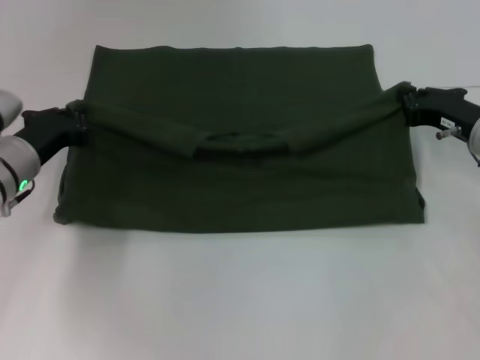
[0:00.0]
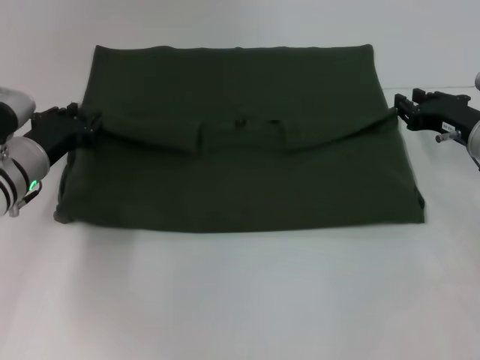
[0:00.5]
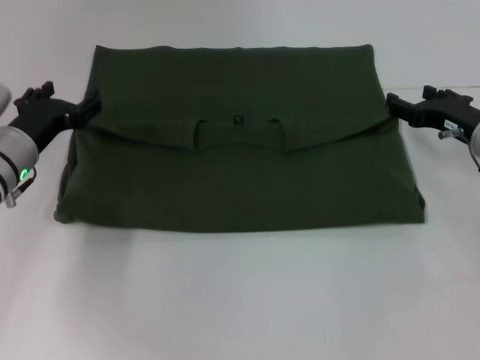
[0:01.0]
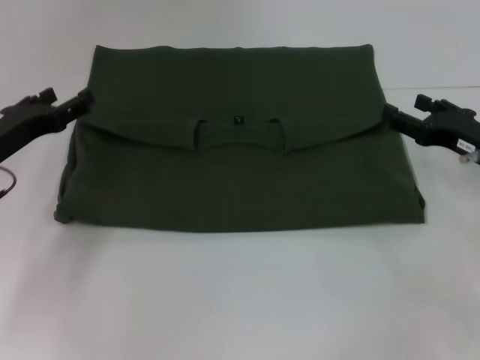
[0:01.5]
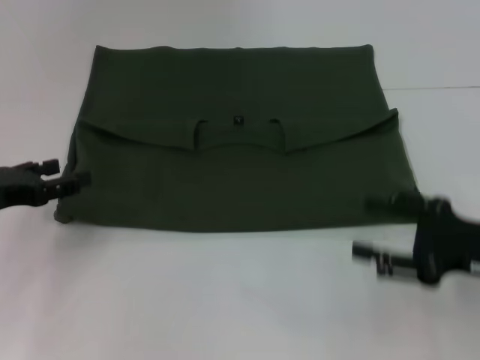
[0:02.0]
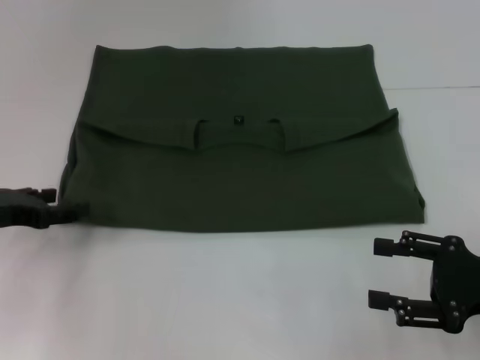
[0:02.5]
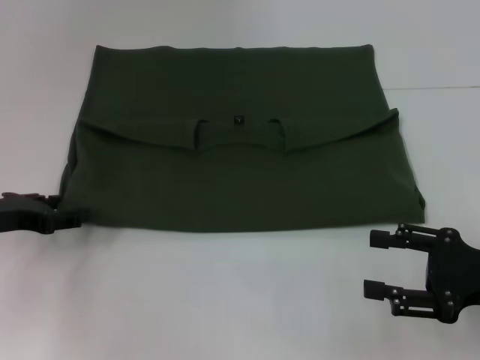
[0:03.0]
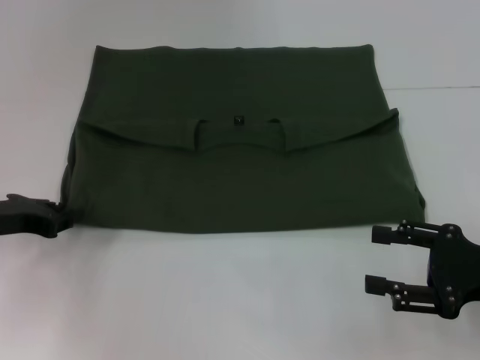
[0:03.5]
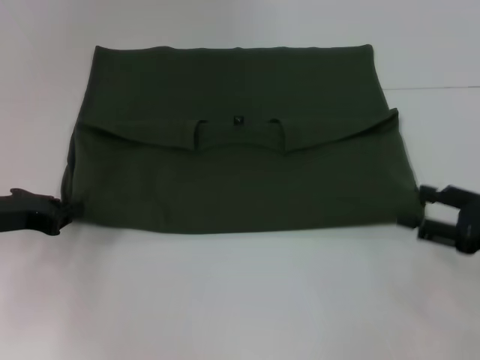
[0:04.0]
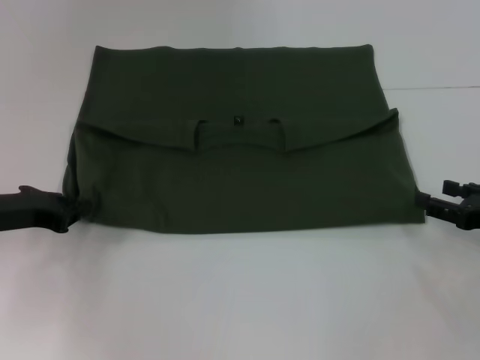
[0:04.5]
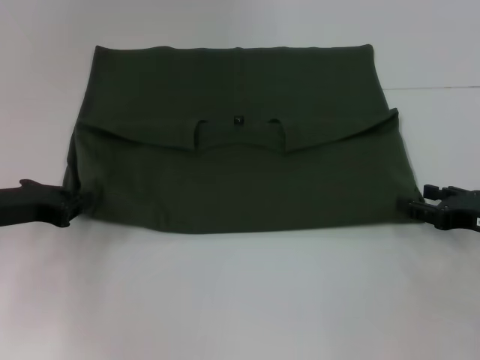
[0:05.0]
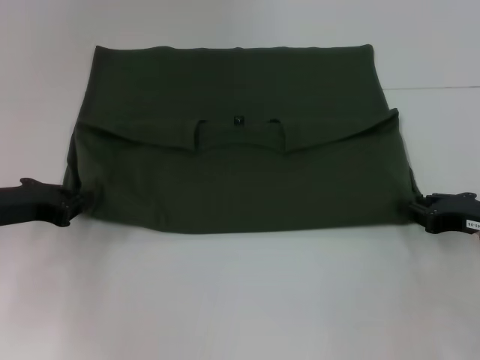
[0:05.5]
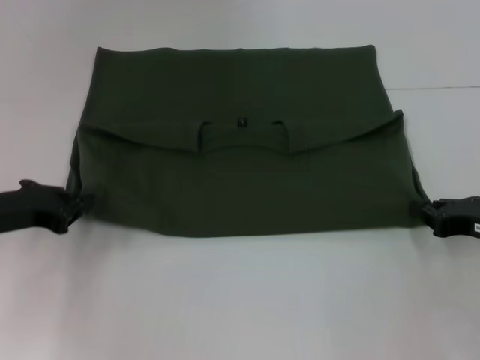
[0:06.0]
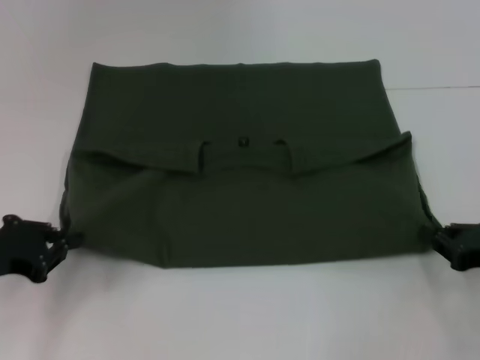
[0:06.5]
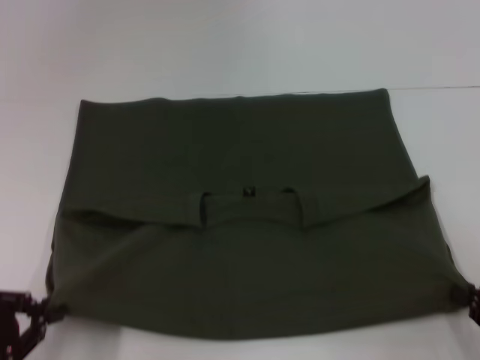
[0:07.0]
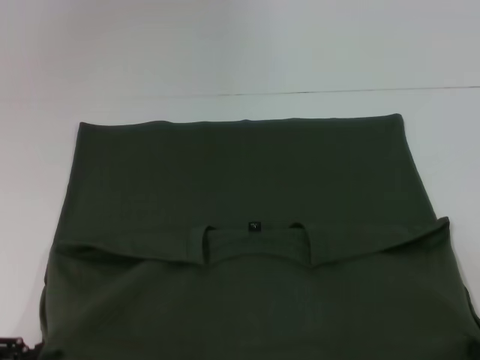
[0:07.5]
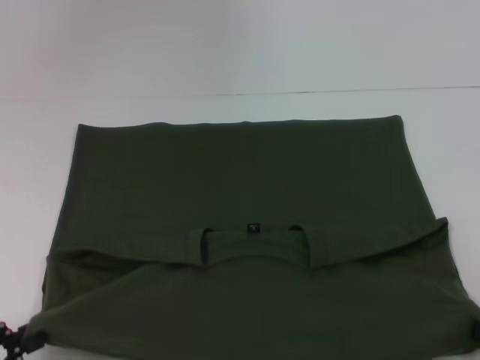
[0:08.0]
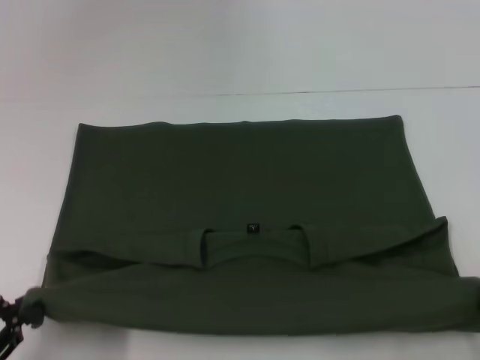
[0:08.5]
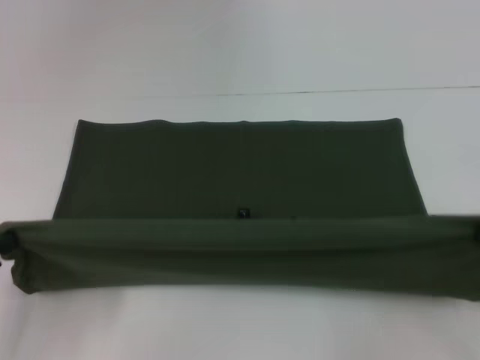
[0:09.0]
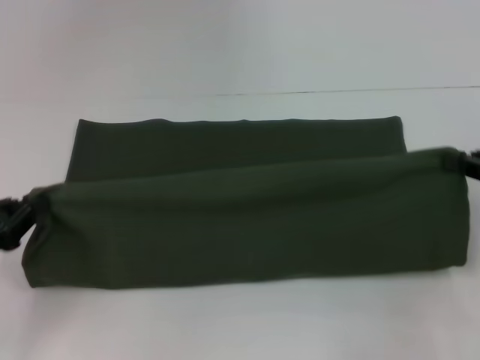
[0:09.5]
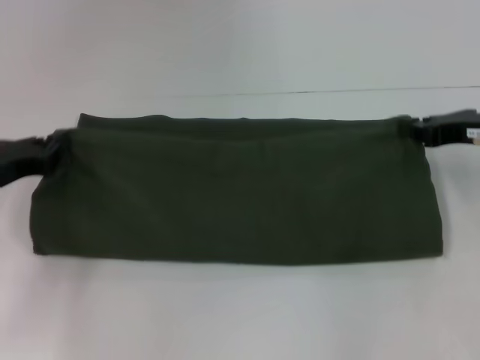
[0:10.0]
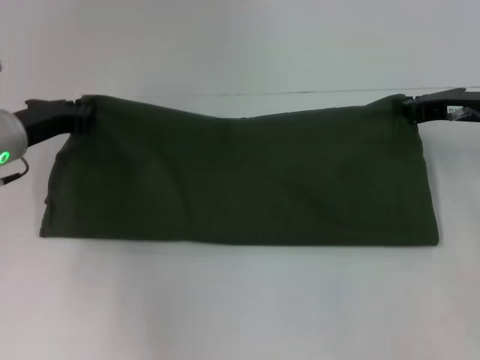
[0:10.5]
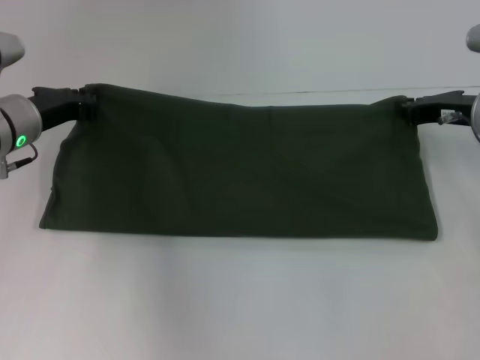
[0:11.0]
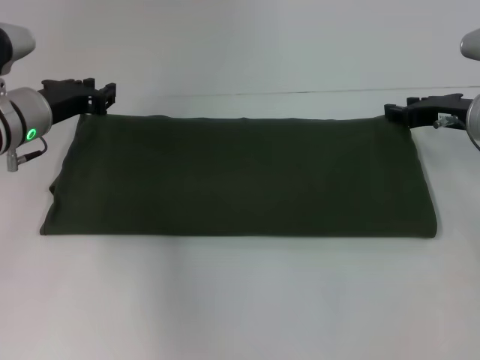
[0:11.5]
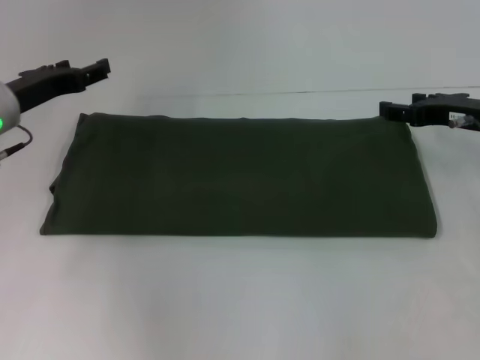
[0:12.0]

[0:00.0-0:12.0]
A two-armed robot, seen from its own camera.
Step, 0:01.5 to 0:07.5: Pull the clothes with your left hand.
Step, 0:01.5 to 0:07.5: Pull the clothes with your right hand.
Step, 0:08.0 to 0:11.5: Fold the clothes with your left hand.
Step, 0:08.0 to 0:11.5: Fold the clothes with your right hand.
0:00.0 to 0:02.0: The left gripper moves to the left and backward, some 10 cm, and opens. Meanwhile the right gripper shifts approximately 15 cm backward, and opens up.
0:02.0 to 0:04.0: The left gripper closes up.
0:04.0 to 0:06.0: The right gripper ends up roughly 5 cm from where it was, and closes.
0:06.0 to 0:08.0: The two grippers go roughly 20 cm backward.
0:08.0 to 0:10.0: The right gripper is displaced forward and upward by some 25 cm. The left gripper moves forward, roughly 20 cm.
0:10.0 to 0:12.0: The left gripper heads forward, covering approximately 10 cm, and opens, while the right gripper opens up.

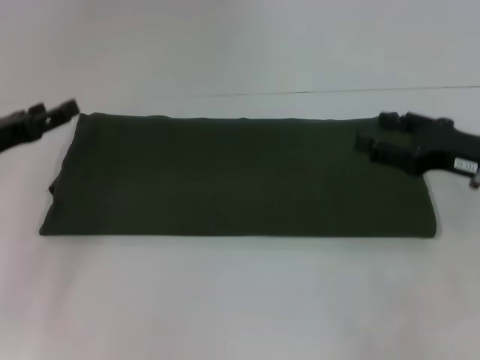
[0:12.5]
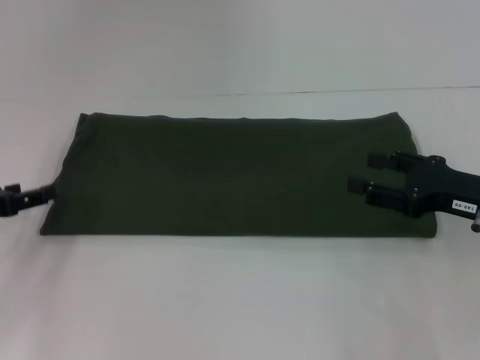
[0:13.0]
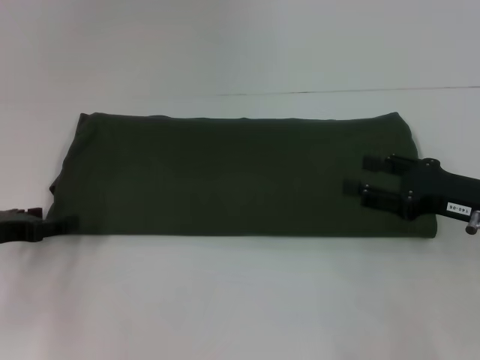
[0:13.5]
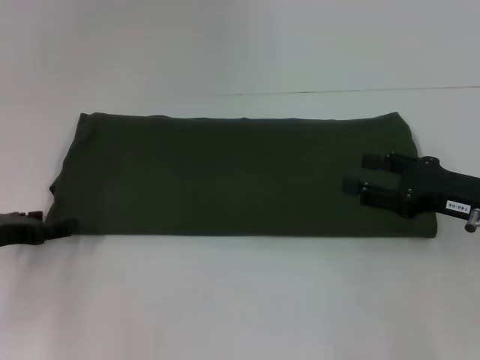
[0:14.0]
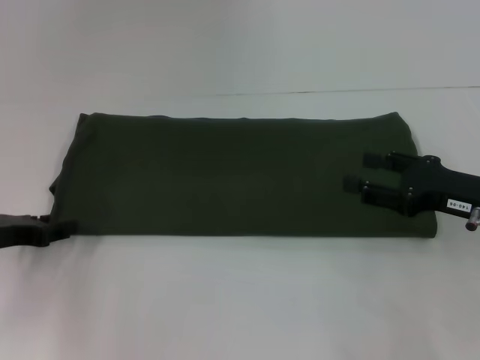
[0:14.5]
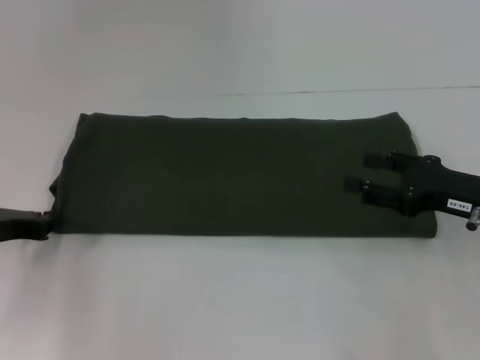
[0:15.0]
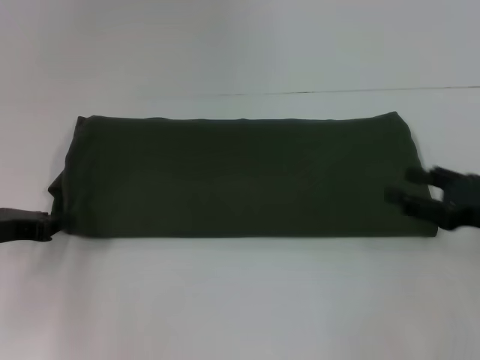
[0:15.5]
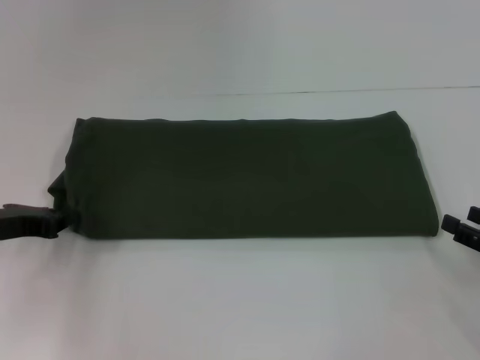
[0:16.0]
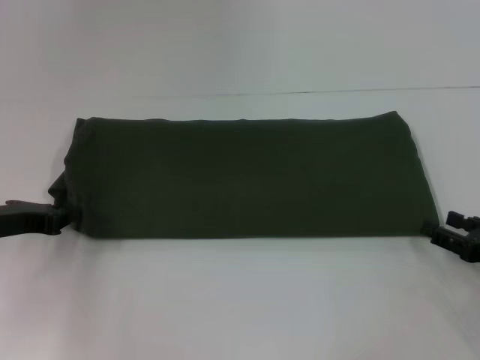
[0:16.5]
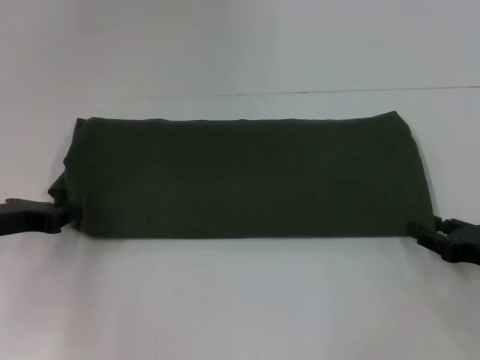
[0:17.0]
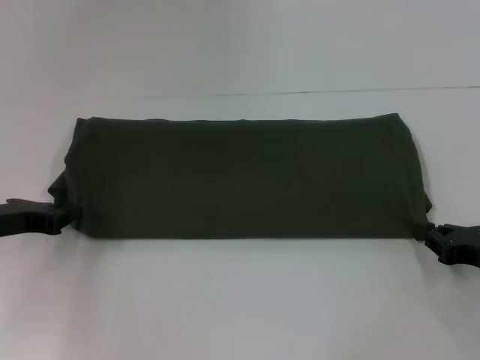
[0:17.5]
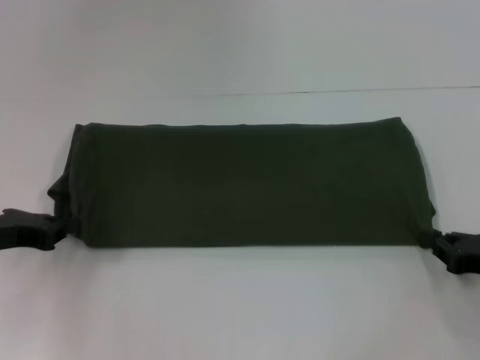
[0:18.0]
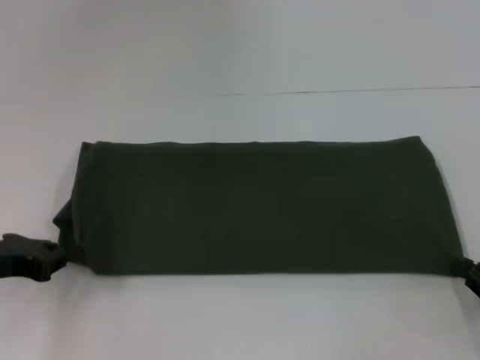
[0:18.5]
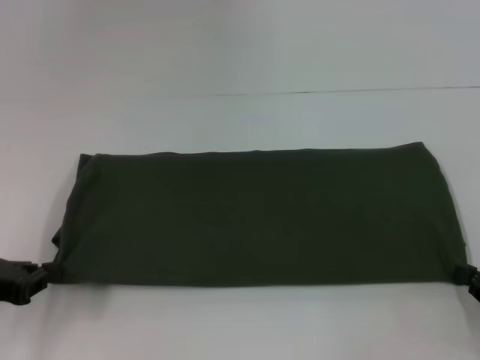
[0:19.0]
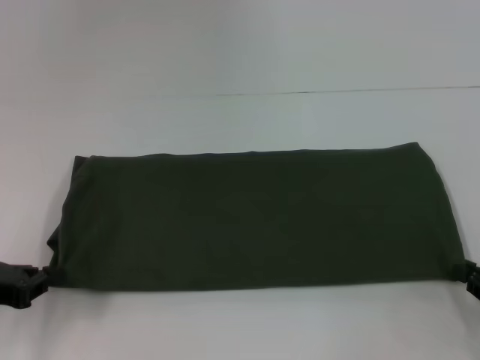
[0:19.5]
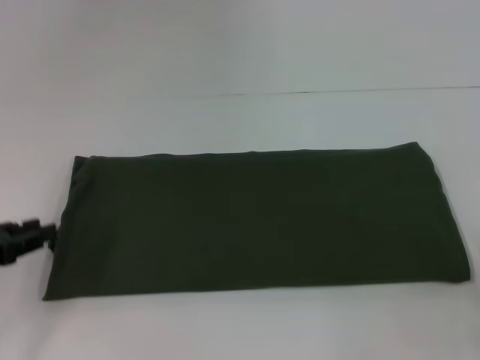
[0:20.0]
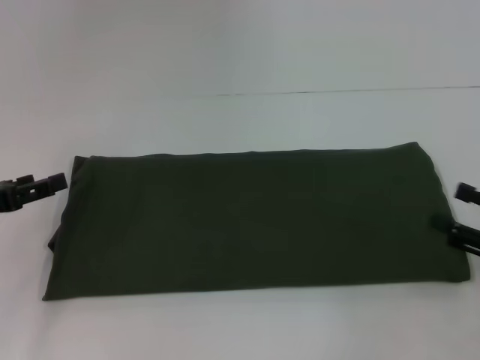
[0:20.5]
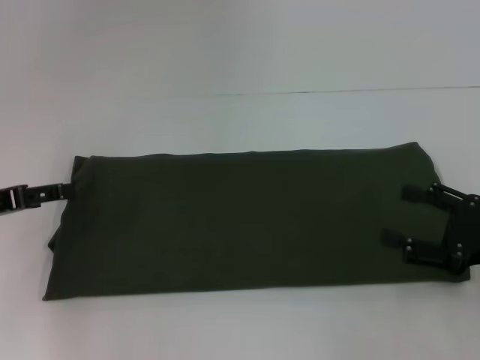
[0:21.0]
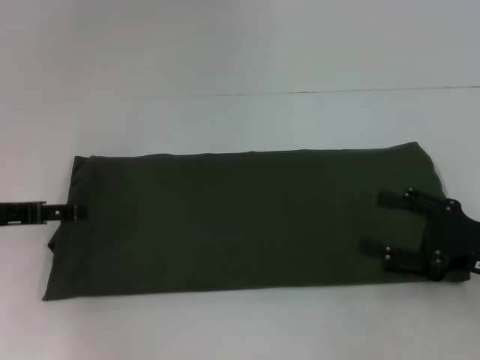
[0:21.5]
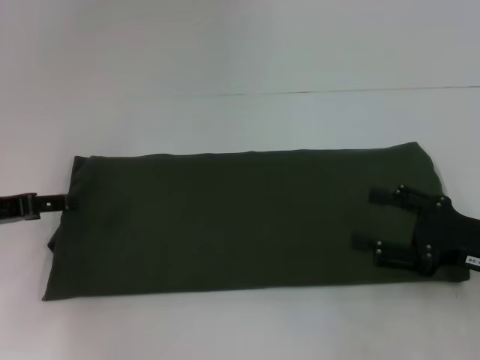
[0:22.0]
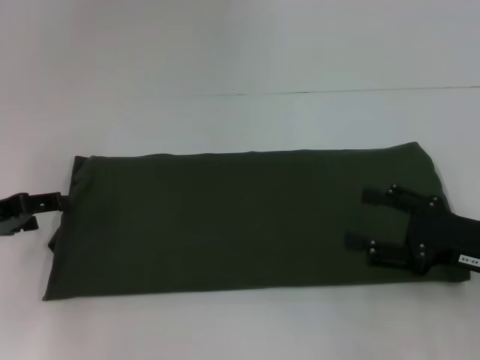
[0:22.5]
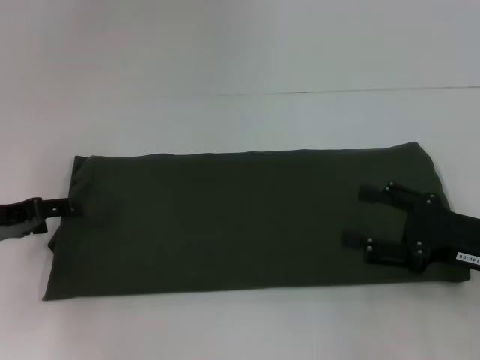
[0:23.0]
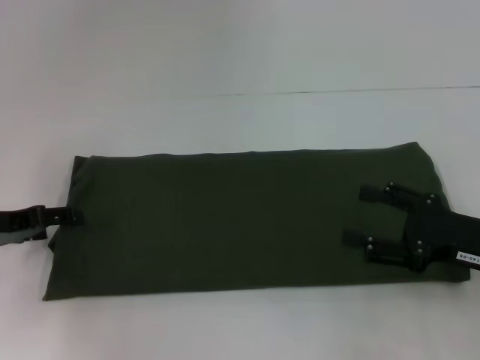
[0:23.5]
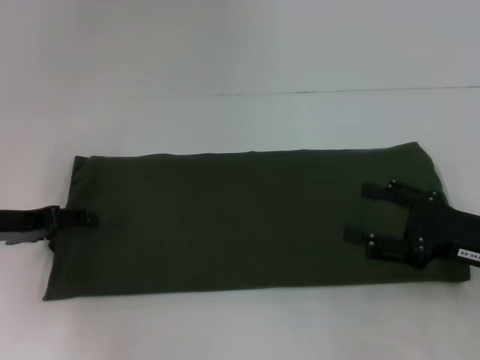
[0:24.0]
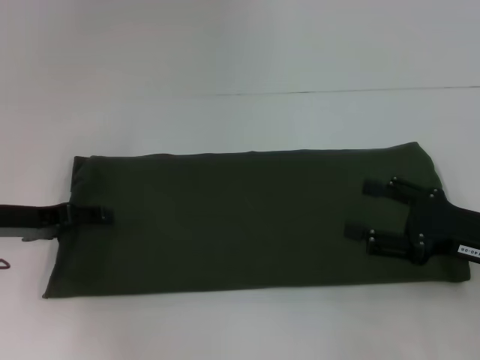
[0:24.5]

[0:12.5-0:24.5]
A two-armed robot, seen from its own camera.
Step, 0:12.5 to 0:20.0: Pull the clothes with your left hand.
Step, 0:12.5 to 0:20.0: Pull the clothes with your right hand.
0:14.5 to 0:16.5: The left gripper closes up, while the right gripper travels downward and to the right by some 10 cm.
0:16.5 to 0:18.5: The right gripper closes.
0:18.5 to 0:20.5: The right gripper shifts by approximately 5 cm, and opens, while the left gripper opens up.
0:20.5 to 0:22.5: The right gripper heads to the left, covering about 5 cm.
0:22.5 to 0:24.5: The grippers stay close to where they were, moving slightly.

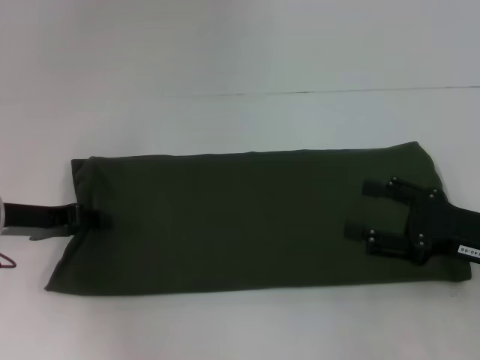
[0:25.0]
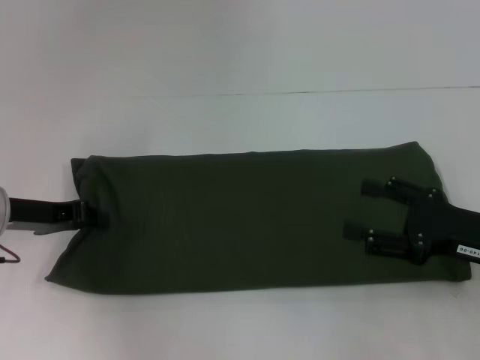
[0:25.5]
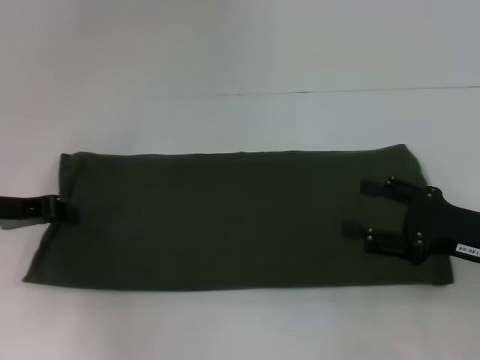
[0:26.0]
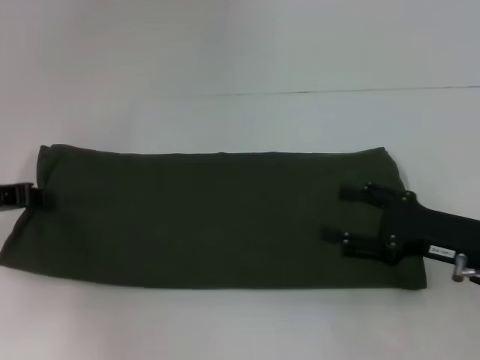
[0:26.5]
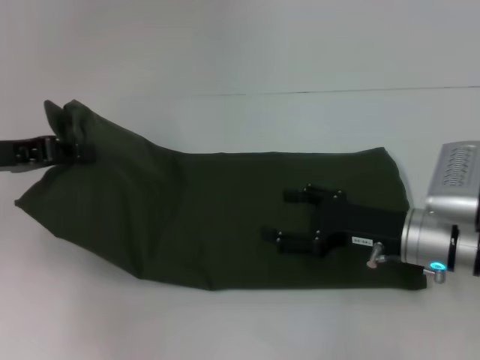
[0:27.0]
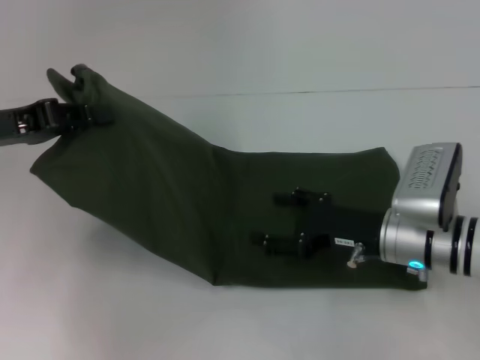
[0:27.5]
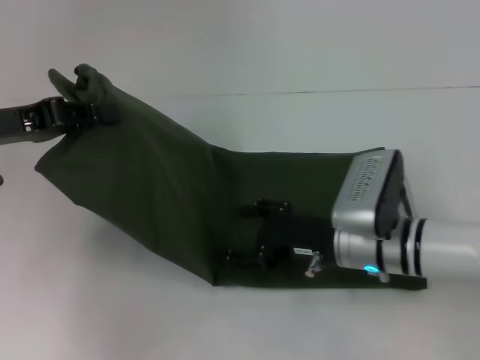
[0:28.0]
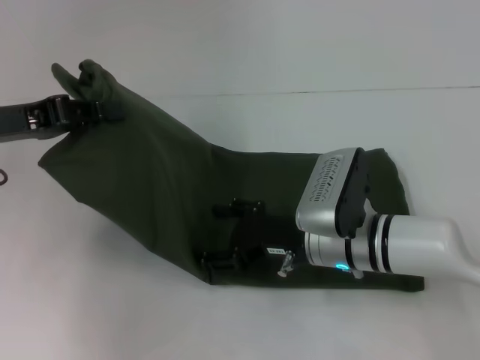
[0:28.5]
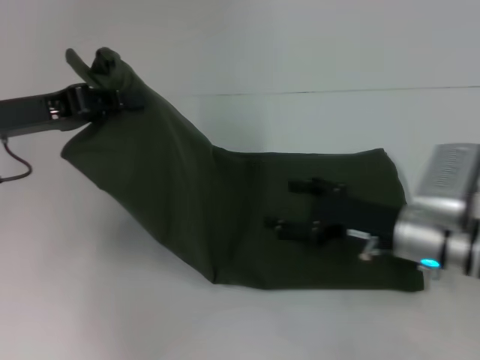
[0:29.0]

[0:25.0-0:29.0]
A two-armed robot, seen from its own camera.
0:25.0 to 0:27.0: The right gripper goes about 10 cm to the left. The left gripper travels upward by some 5 cm, and closes its fingers.
0:27.0 to 0:29.0: The right gripper travels to the left and back again, about 10 cm each way.
